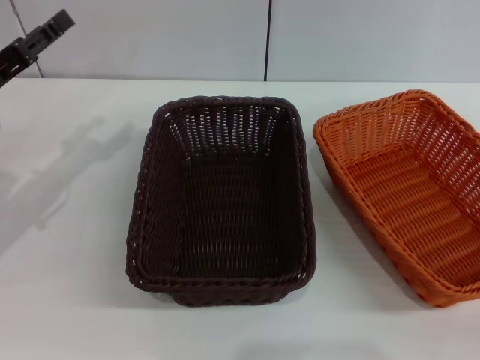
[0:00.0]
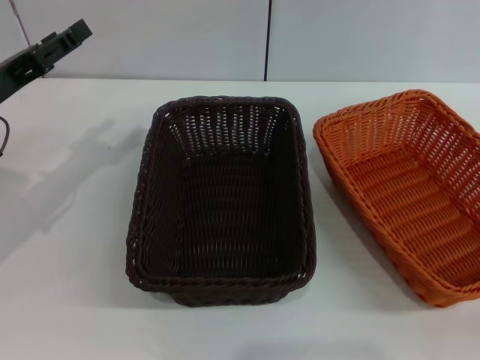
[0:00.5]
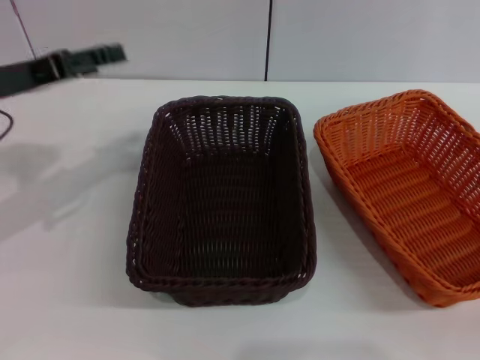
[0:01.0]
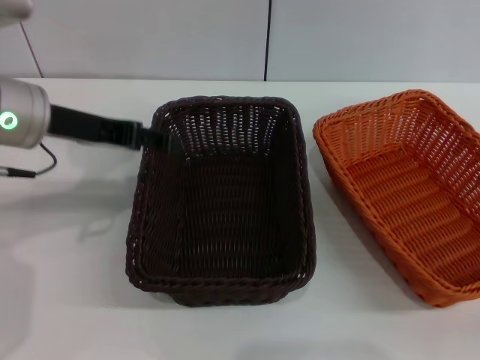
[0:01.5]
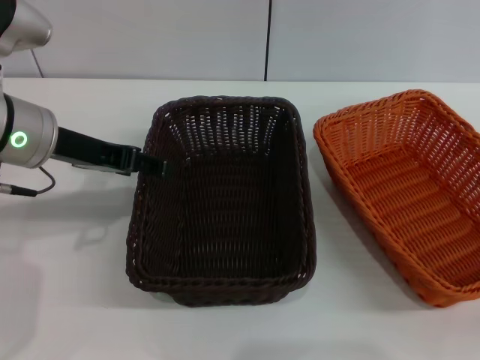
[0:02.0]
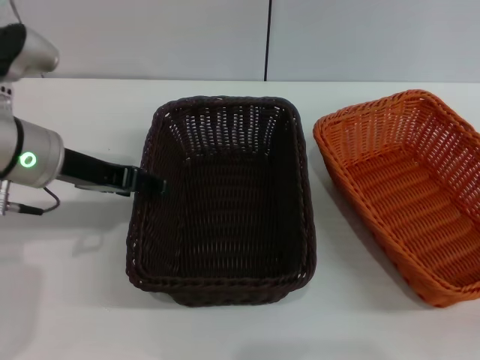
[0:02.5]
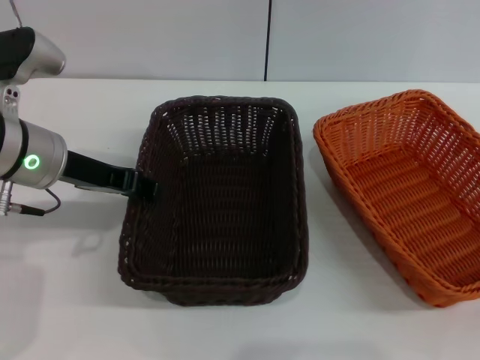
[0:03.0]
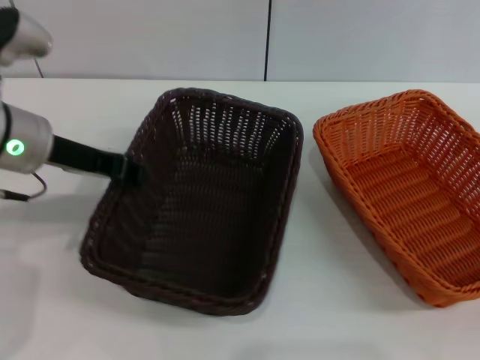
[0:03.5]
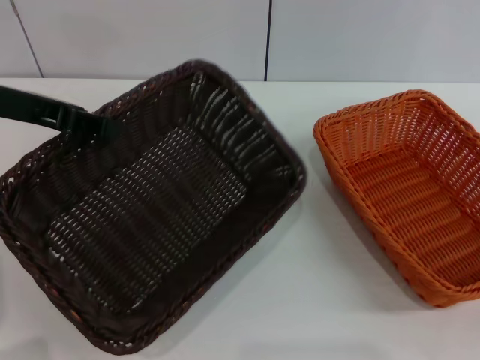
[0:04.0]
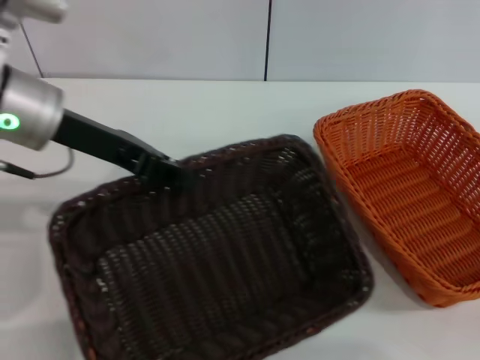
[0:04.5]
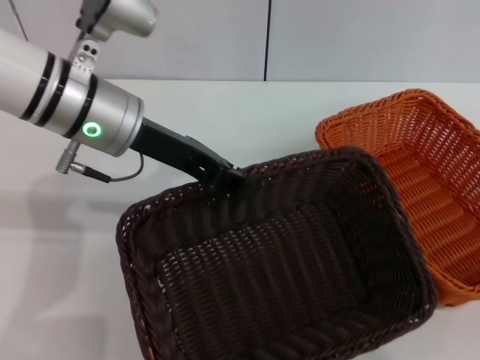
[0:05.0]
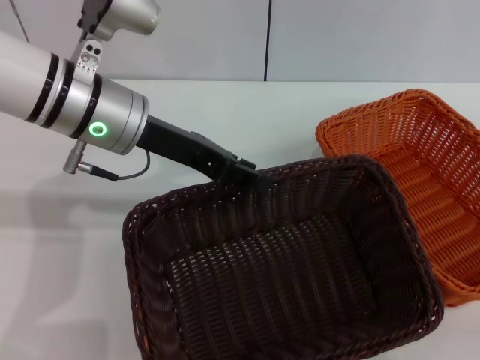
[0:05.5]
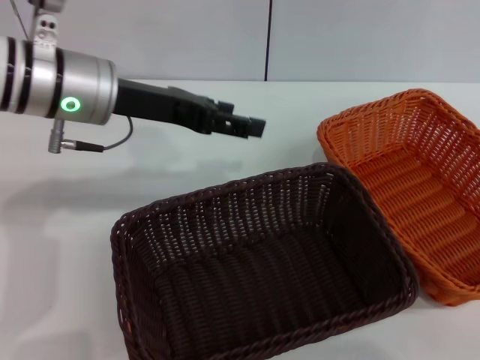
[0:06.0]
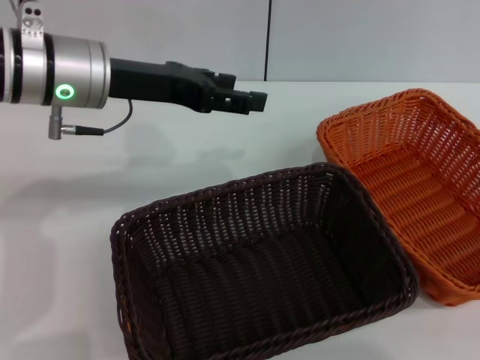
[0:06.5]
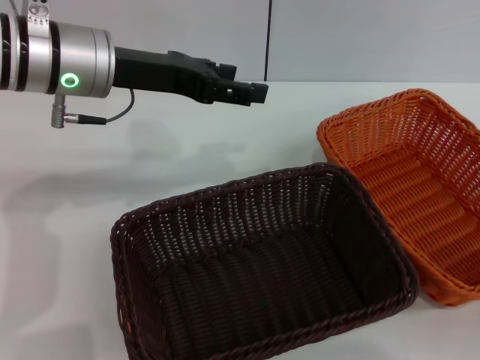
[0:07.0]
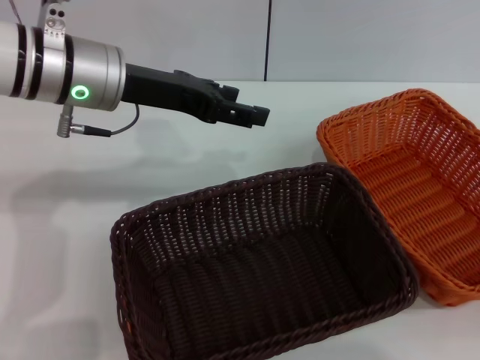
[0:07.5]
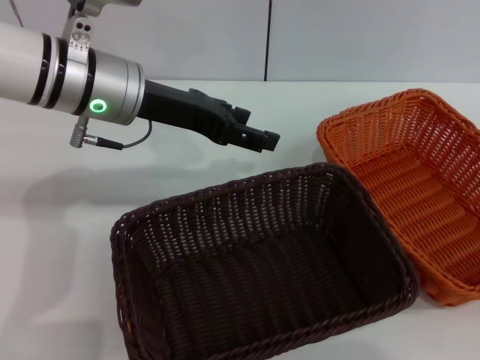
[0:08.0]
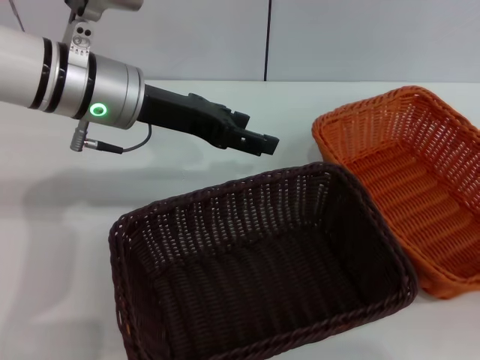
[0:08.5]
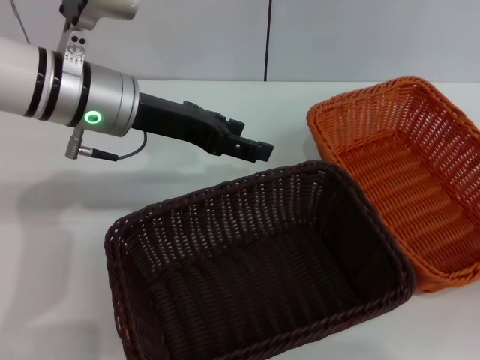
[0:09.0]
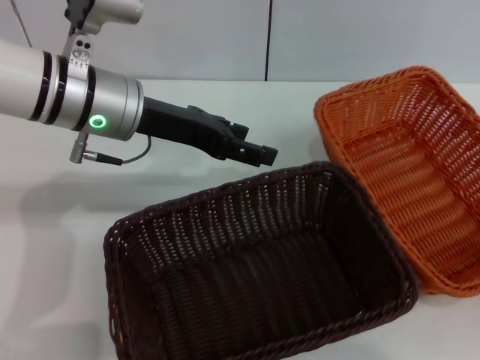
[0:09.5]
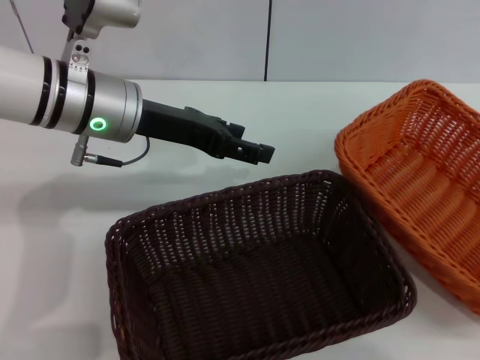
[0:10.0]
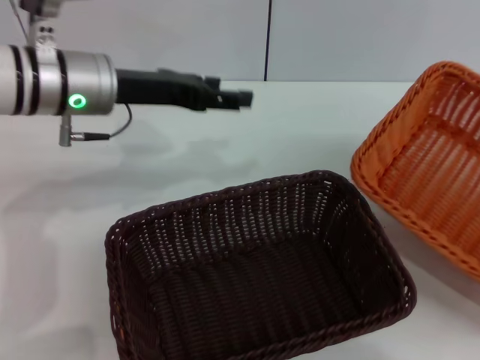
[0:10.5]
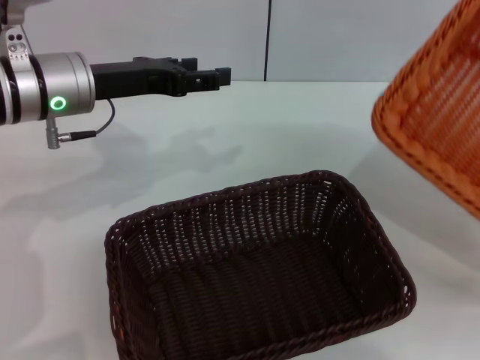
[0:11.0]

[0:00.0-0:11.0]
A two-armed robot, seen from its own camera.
Step, 0:00.0 to 0:03.5: Pick up the dark basket with the left gripper.
Step, 0:04.0 to 0:05.5: Place the dark basket in the center of view with the left gripper.
Step, 0:06.0 to 0:10.0: Pick up the light basket with the right gripper.
0:00.0 to 0:02.0: The left gripper heads to the right, covering approximately 10 cm.
0:02.0 to 0:03.5: The left gripper closes.
0:03.5 to 0:05.5: The left gripper moves to the right, some 10 cm.
0:05.5 to 0:07.5: The right gripper travels upward and to the right by approximately 10 cm. Meanwhile the left gripper opens.
0:07.5 to 0:09.0: The right gripper moves forward, about 5 cm.
0:09.0 to 0:11.0: The right gripper travels to the right by roughly 5 cm, and closes.

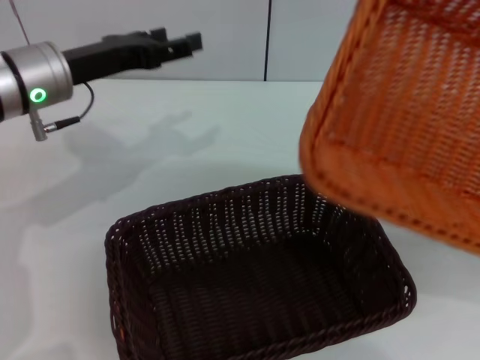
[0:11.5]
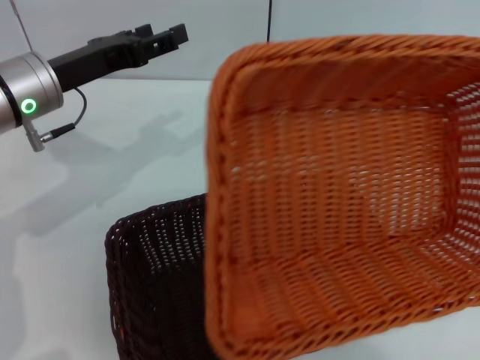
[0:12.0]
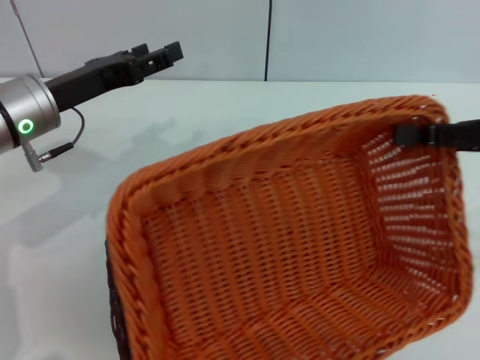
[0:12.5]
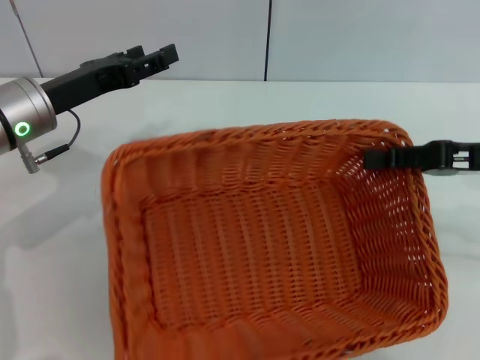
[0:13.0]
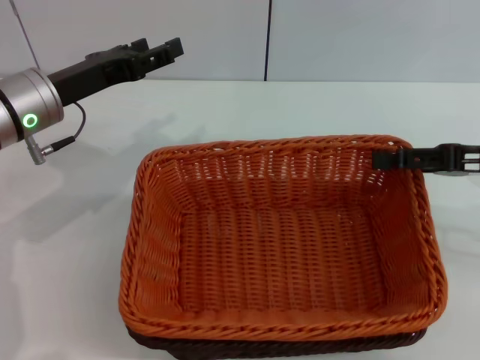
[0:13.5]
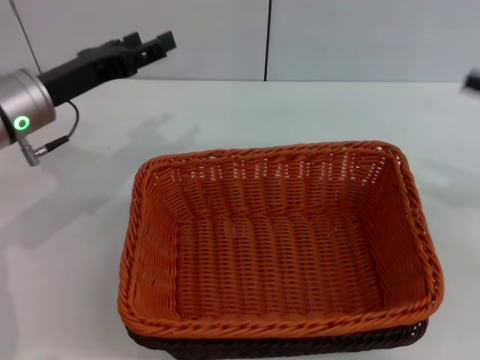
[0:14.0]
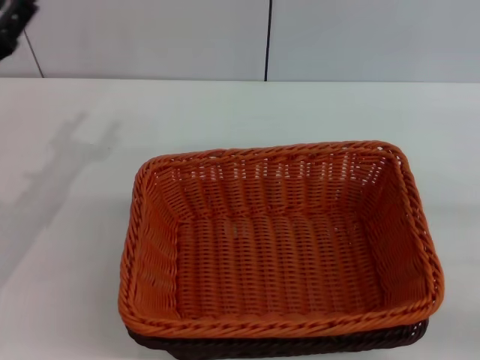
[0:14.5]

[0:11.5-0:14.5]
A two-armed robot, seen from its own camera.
Step, 0:11.5 to 0:13.5: Place the light basket on the dark basket with the right gripper.
0:11.5 to 0:13.0: The right gripper goes approximately 20 cm to the left and forward.
0:13.0 to 0:14.5: The right gripper goes some 15 cm to the right and backward, and opens up. The left gripper goes approximately 5 cm to the left.

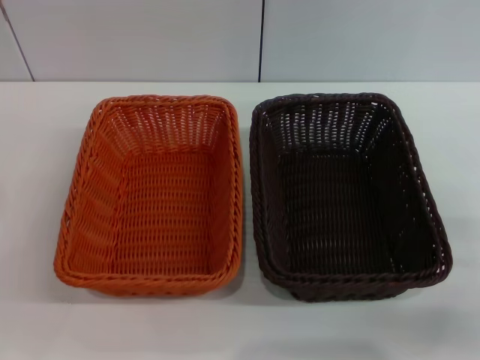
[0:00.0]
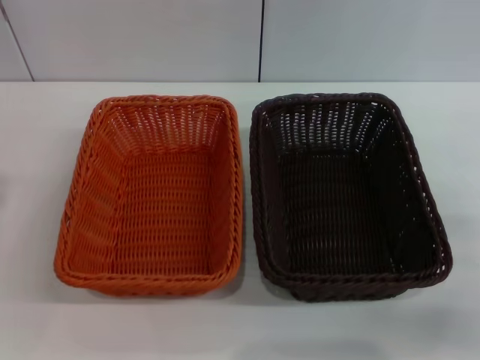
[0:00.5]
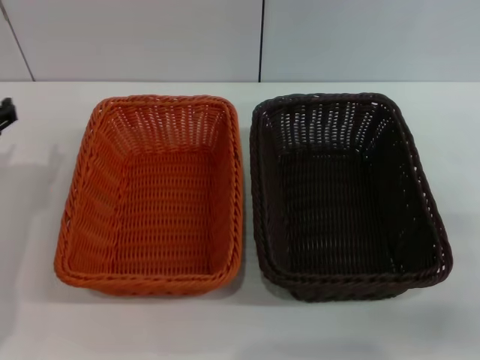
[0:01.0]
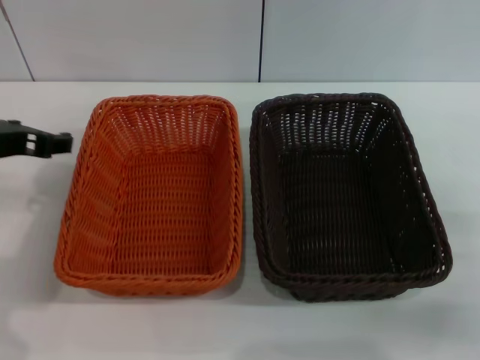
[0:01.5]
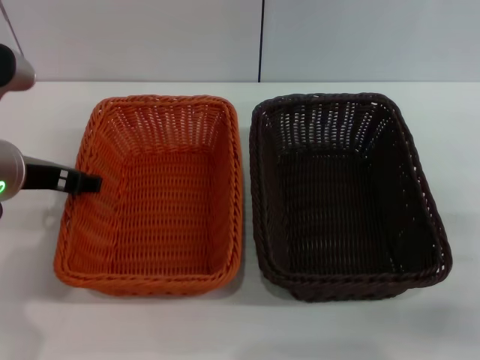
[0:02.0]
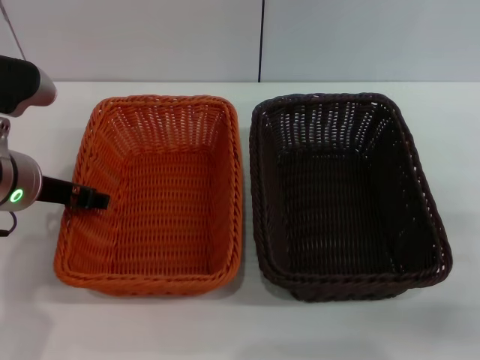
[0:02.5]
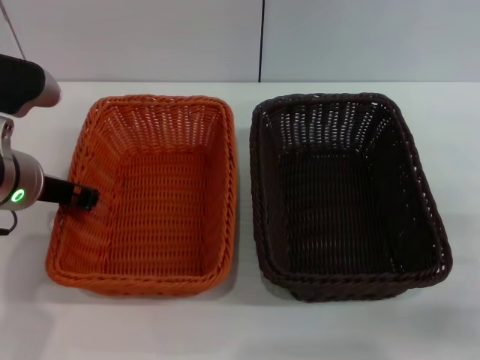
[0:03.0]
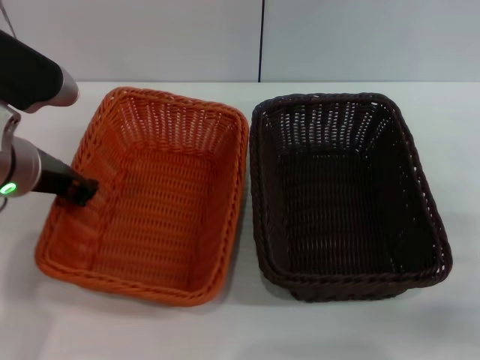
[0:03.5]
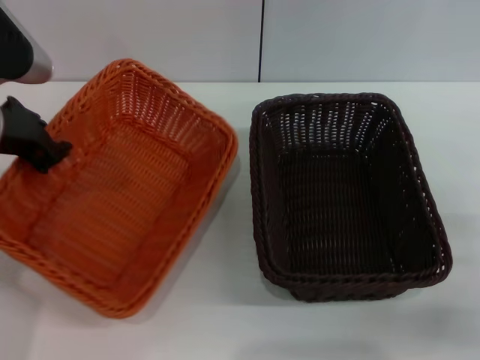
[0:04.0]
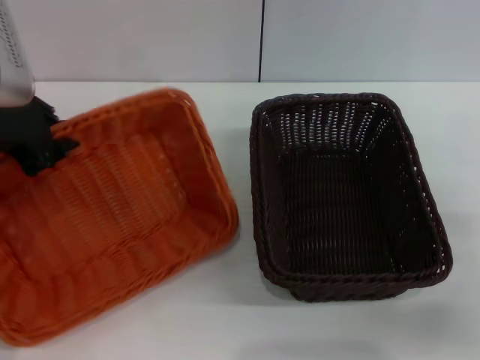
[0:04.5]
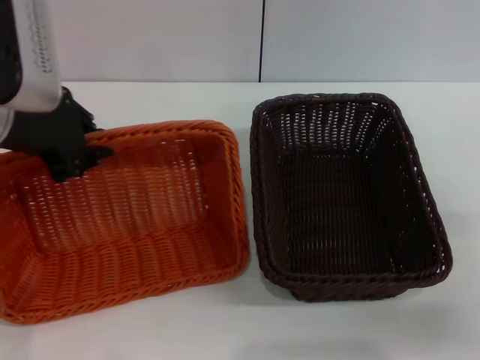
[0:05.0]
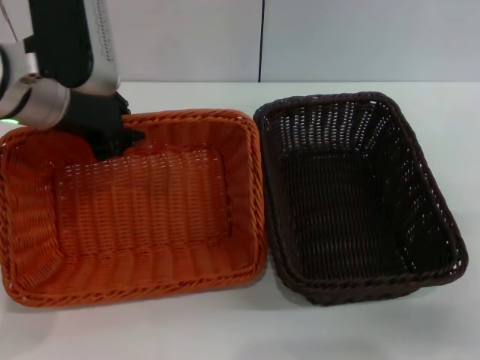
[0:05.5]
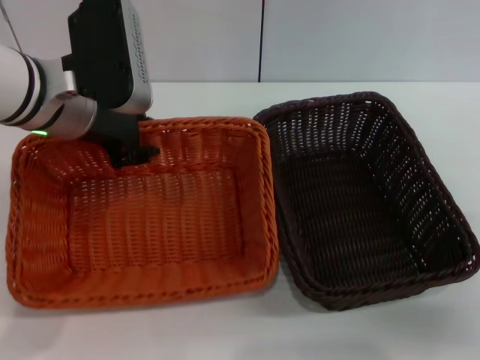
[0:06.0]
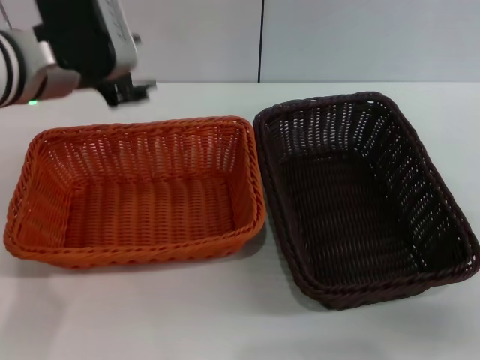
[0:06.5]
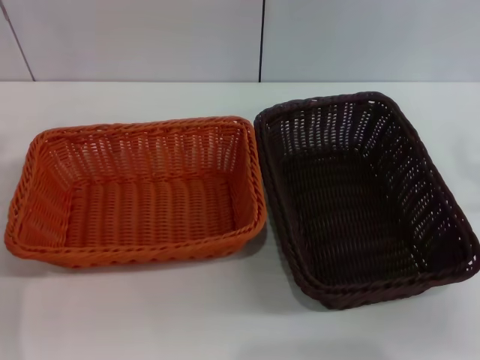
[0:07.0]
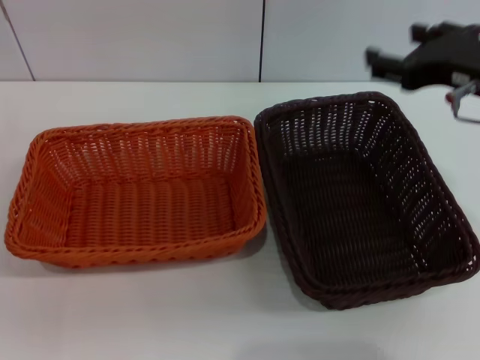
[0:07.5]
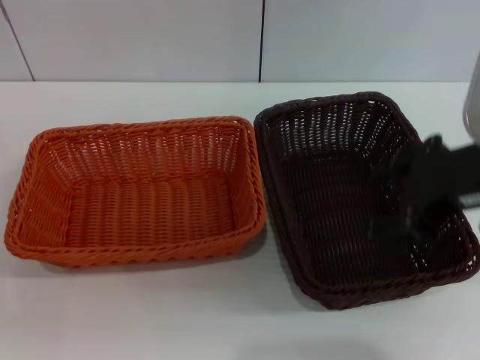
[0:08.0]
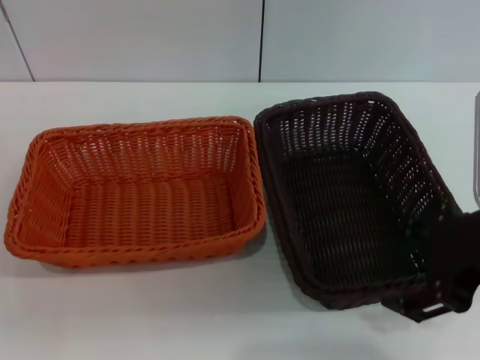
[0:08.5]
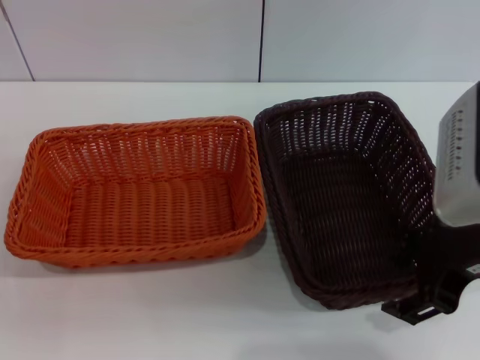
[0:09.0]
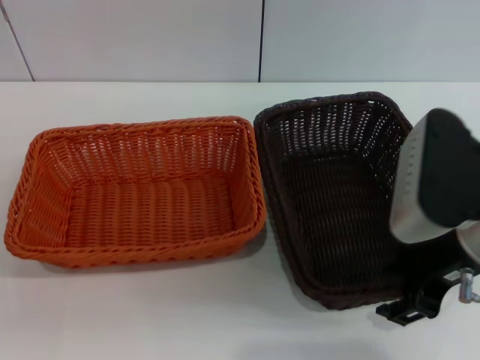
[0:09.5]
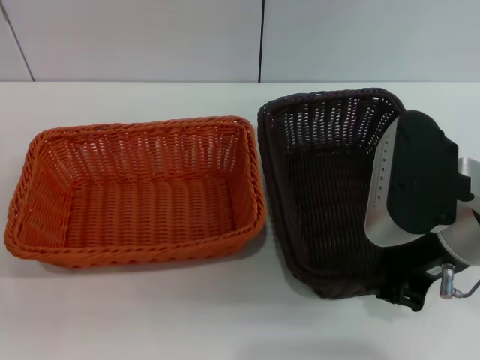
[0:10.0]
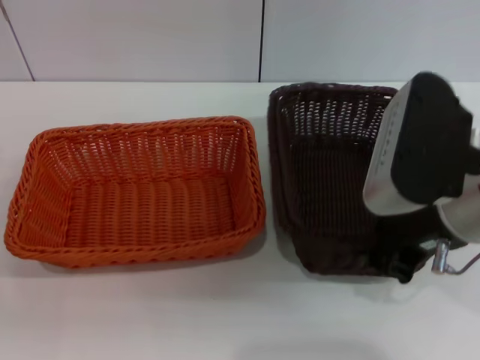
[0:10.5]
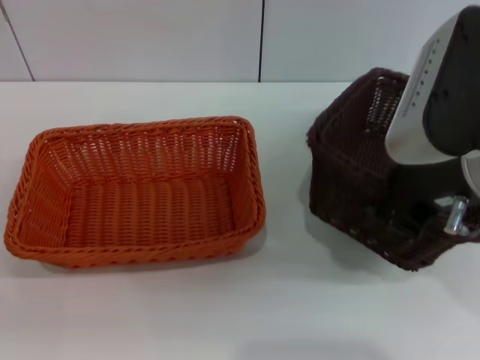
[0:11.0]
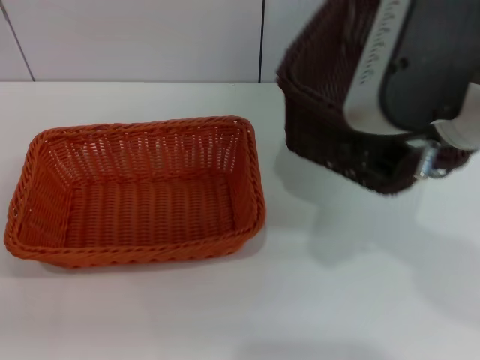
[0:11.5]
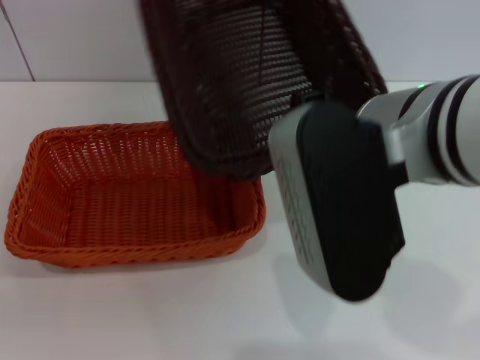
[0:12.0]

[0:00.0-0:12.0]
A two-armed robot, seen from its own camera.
Step, 0:00.0 to 0:03.5: Pick up the light basket with the left gripper.
Step, 0:04.0 to 0:06.0: Place the light basket in the center of view with the left gripper.
Step, 0:06.5 to 0:10.5: Pick up the dark basket with the right gripper.
0:00.0 to 0:02.0: The left gripper travels upward, to the right and forward by some 20 cm.
0:02.0 to 0:04.0: The left gripper closes.
0:04.0 to 0:06.0: The left gripper goes approximately 5 cm to the right.
0:06.0 to 0:08.0: The left gripper travels backward, to the left and downward by about 25 cm, and opens its fingers; the right gripper is displaced upward and to the left by approximately 25 cm.
0:08.0 to 0:10.0: The right gripper moves downward, about 5 cm, and closes its fingers.
0:10.0 to 0:12.0: The right gripper moves to the left and upward, some 10 cm, and closes up.
